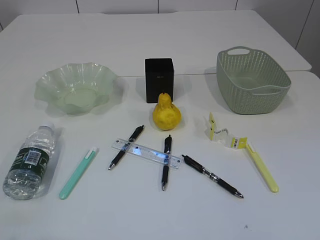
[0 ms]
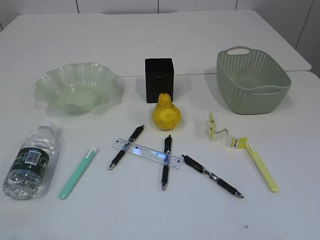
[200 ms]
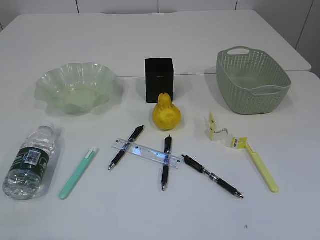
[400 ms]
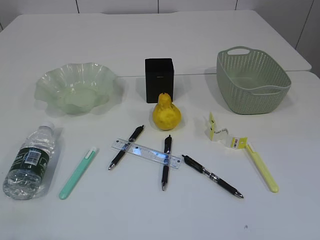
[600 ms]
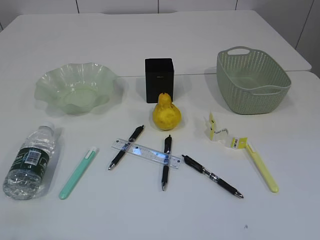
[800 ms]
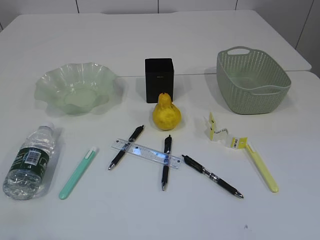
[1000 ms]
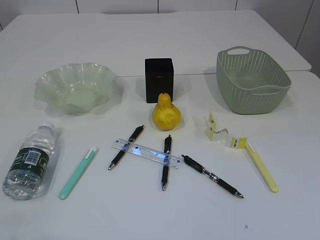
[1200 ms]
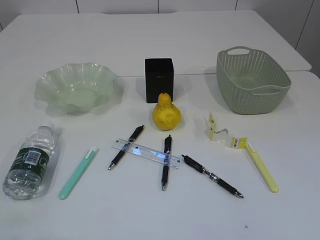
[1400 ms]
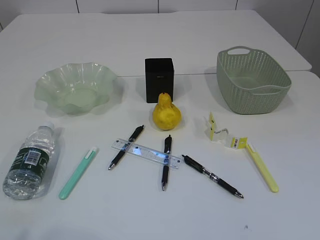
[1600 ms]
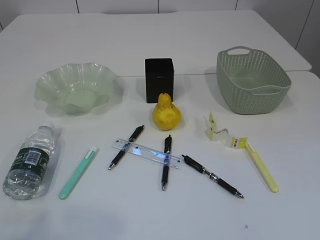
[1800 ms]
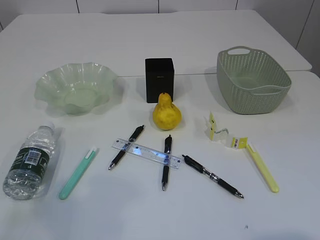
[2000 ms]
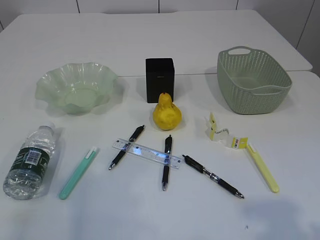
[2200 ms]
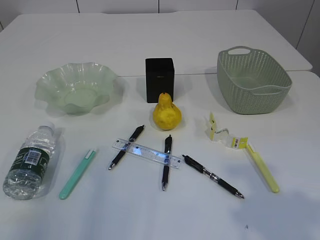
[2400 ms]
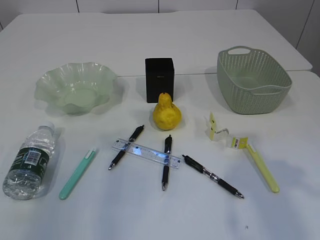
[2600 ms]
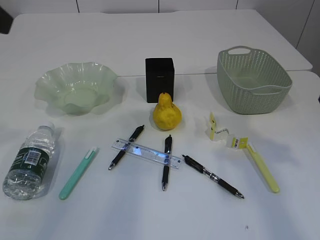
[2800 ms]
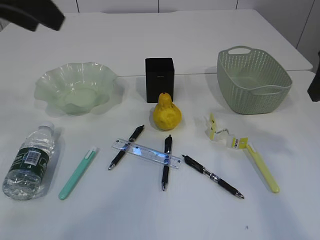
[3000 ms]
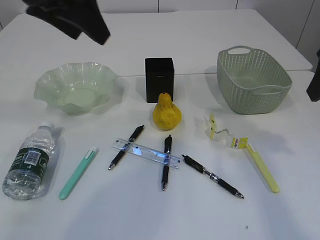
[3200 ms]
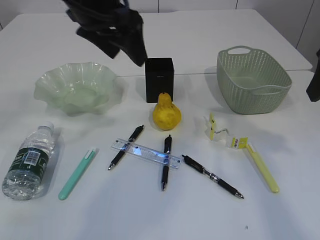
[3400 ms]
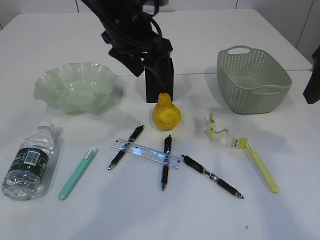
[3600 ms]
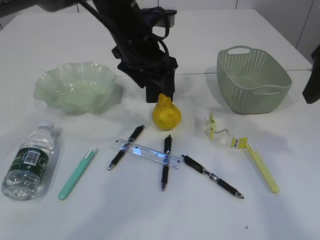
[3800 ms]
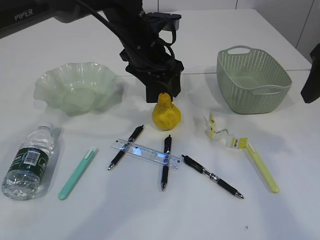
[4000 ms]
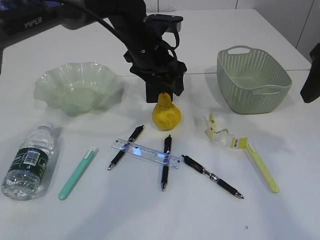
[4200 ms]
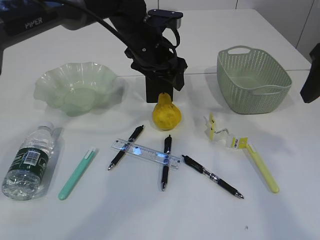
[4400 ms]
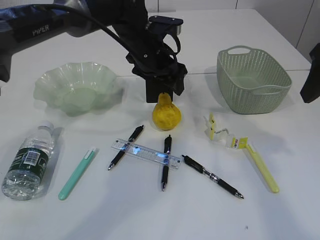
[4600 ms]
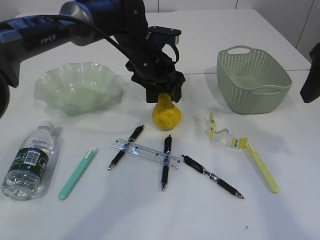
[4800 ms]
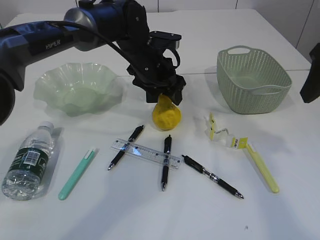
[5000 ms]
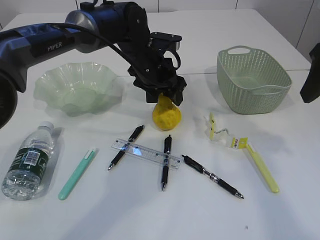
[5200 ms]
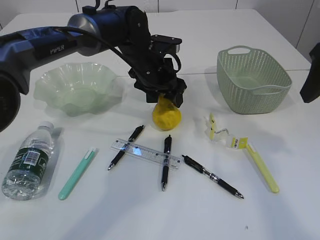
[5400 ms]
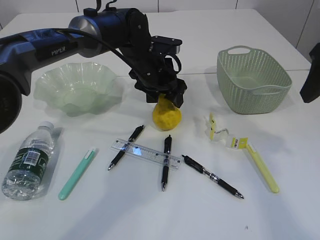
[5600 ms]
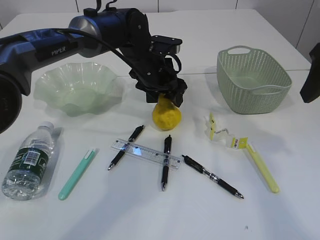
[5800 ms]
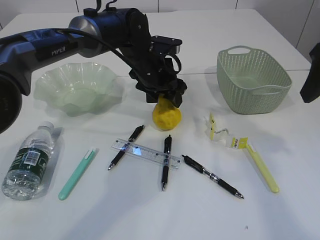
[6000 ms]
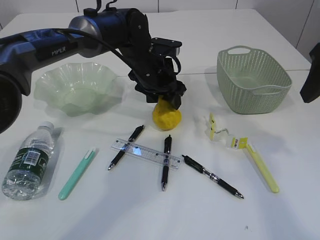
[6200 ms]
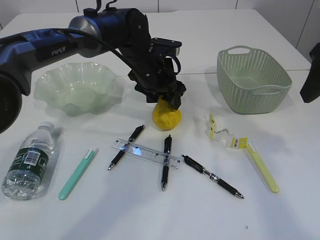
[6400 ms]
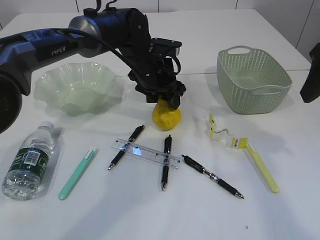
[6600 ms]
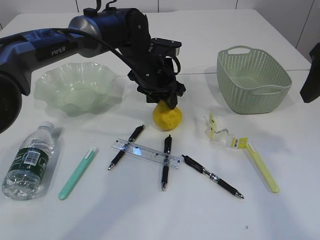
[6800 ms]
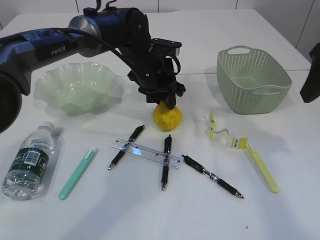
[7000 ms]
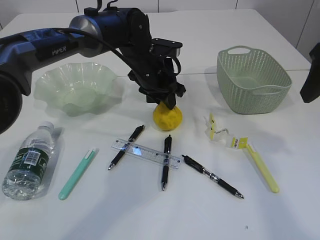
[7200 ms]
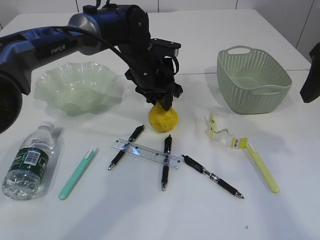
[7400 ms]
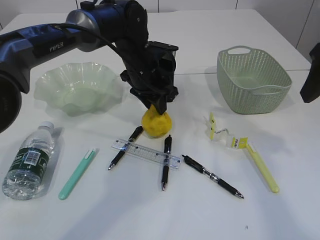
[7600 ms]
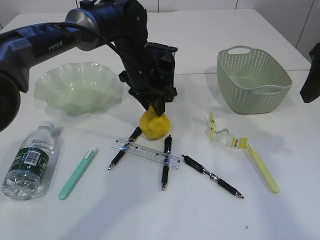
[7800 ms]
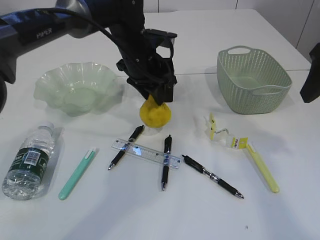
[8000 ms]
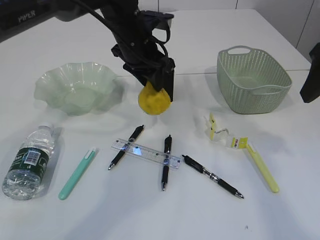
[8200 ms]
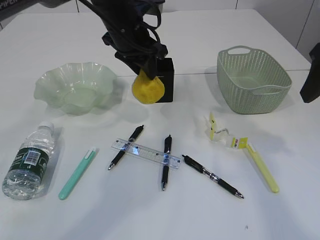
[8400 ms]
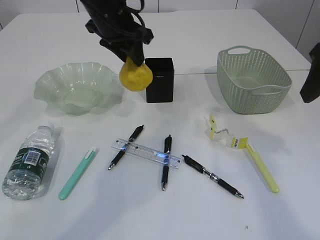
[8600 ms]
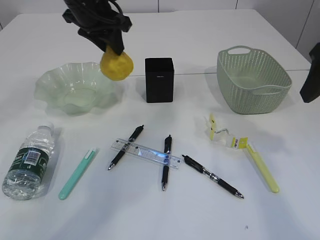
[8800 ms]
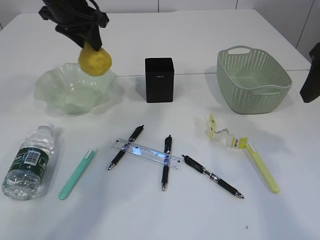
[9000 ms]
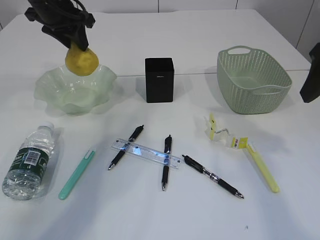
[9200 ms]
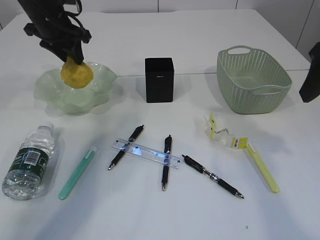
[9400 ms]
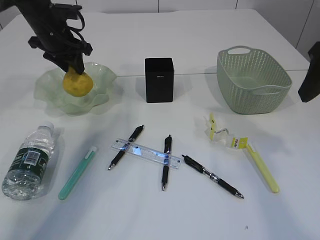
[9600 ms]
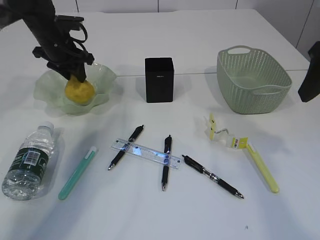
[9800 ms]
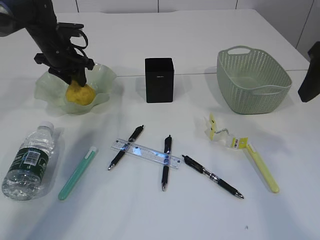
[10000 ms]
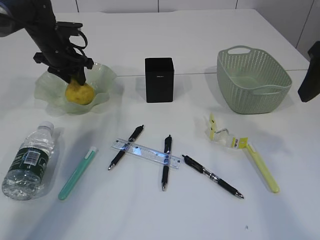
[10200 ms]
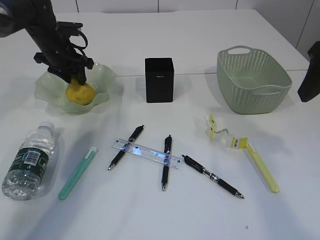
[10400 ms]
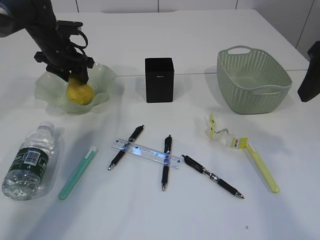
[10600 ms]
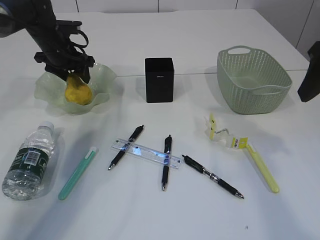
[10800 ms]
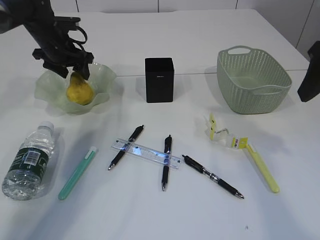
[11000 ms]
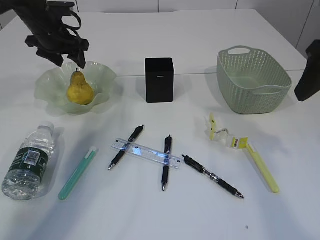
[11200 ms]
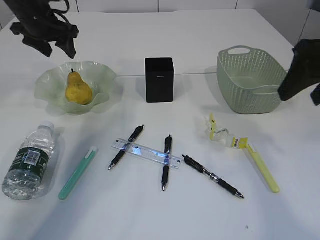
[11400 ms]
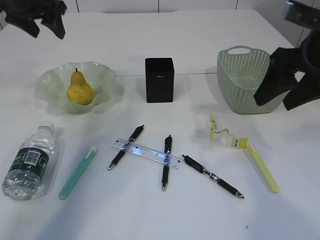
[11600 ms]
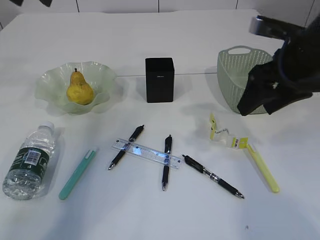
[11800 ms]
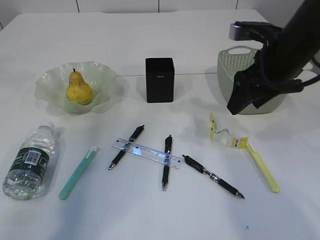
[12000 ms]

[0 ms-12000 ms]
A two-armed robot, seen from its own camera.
Step, 8400 ms to 11200 ms: Place the pear in the plate.
1600 ms to 3000 ms: The grippers both shift forward by roughly 30 cm.
3000 ms to 4400 ms: The left gripper moves to the right, downward and forward, roughly 30 cm.
4400 ms to 6000 ms: The left gripper travels downward by about 5 cm.
6000 ms to 7600 ms: The left gripper closes.
7600 ms to 9000 ms: The left gripper shifts about 20 cm to the left and upward.
9000 ms to 10400 ms: The left gripper travels downward, to the left and forward by approximately 15 cm.
10400 ms to 12000 ms: The left gripper is displaced upward and backward by some 25 cm, and opens. The right gripper heads forward, downward and to the left, covering roughly 10 cm.

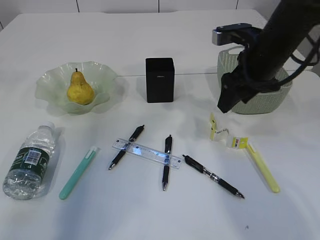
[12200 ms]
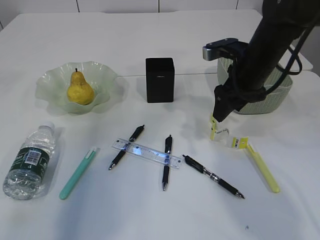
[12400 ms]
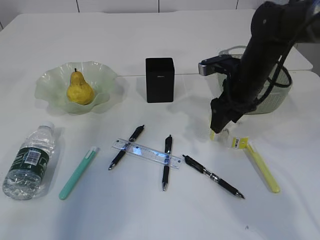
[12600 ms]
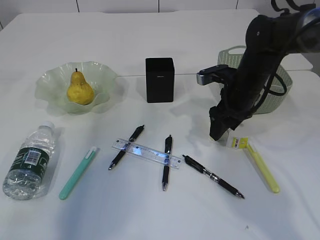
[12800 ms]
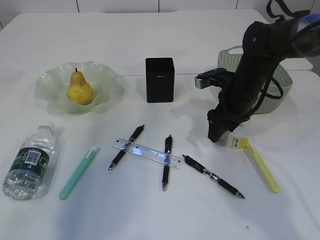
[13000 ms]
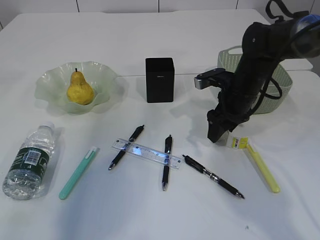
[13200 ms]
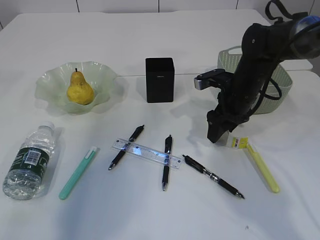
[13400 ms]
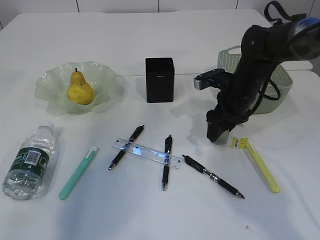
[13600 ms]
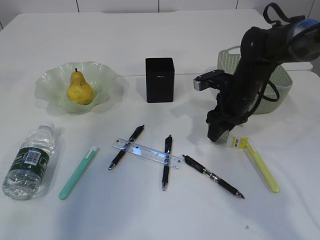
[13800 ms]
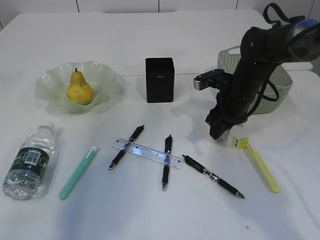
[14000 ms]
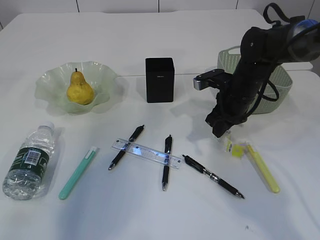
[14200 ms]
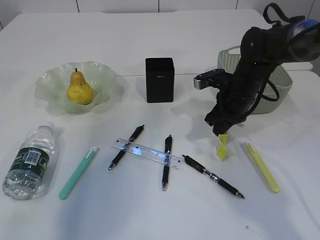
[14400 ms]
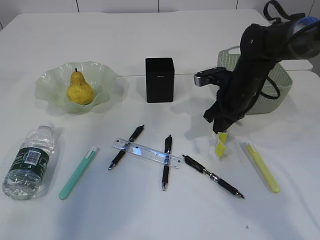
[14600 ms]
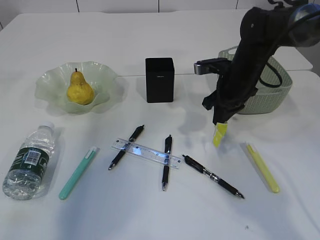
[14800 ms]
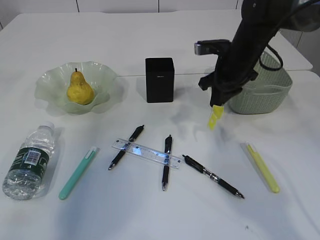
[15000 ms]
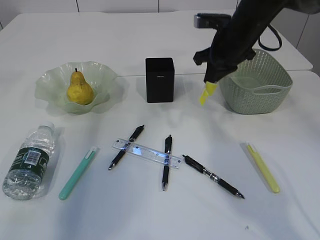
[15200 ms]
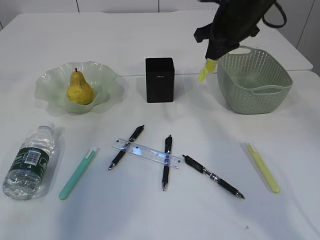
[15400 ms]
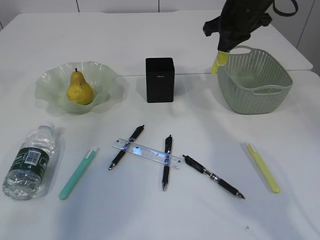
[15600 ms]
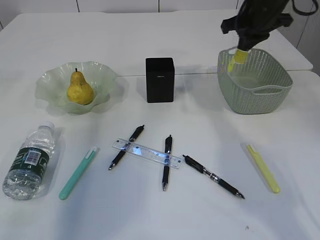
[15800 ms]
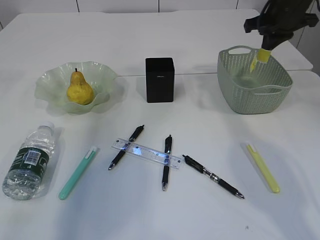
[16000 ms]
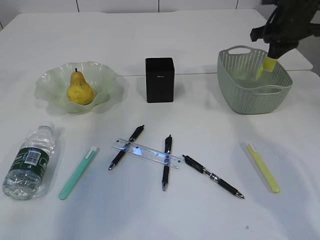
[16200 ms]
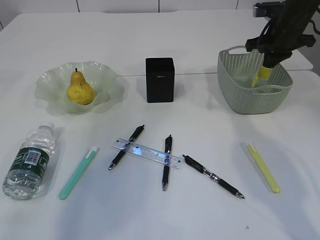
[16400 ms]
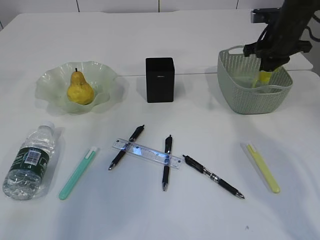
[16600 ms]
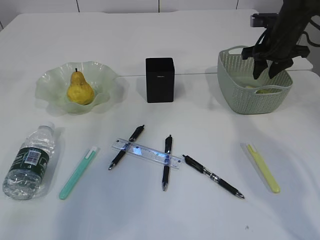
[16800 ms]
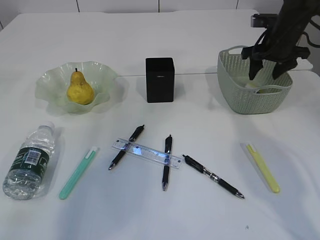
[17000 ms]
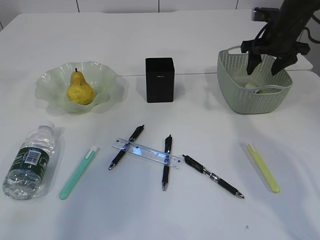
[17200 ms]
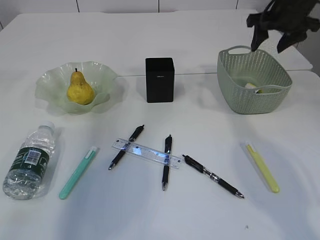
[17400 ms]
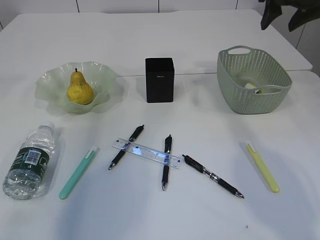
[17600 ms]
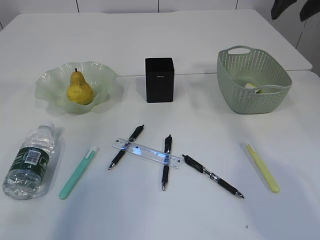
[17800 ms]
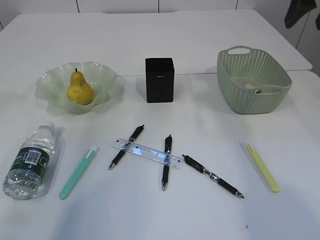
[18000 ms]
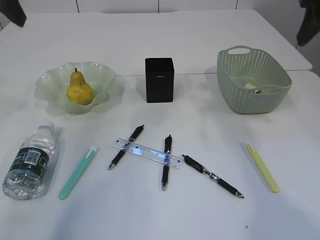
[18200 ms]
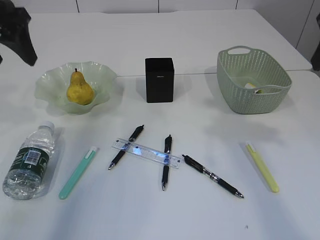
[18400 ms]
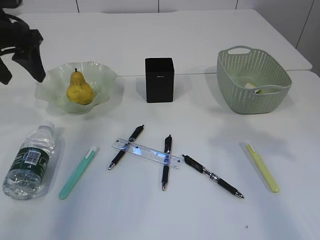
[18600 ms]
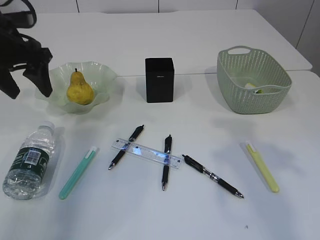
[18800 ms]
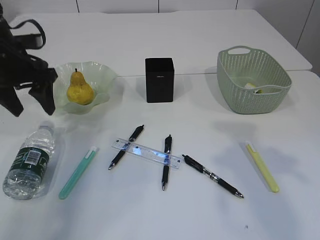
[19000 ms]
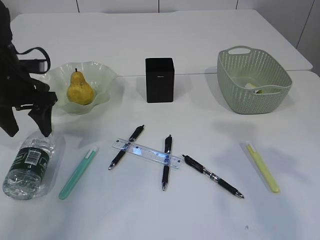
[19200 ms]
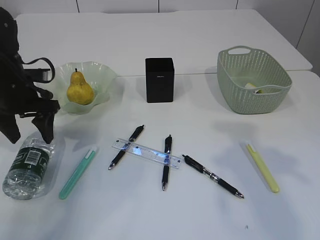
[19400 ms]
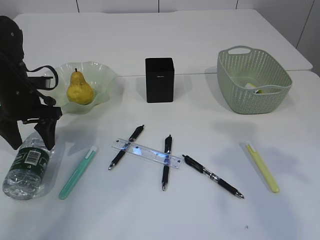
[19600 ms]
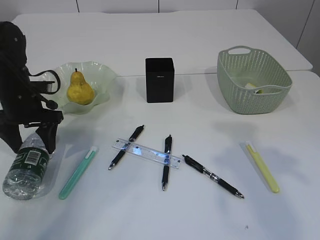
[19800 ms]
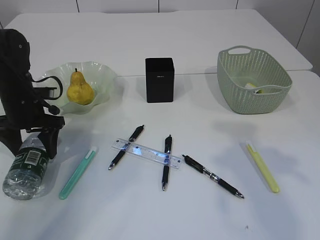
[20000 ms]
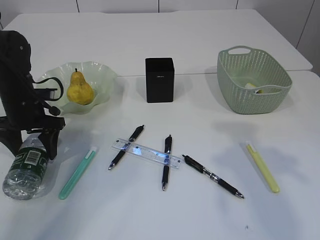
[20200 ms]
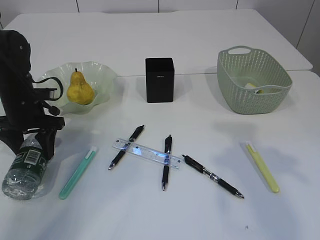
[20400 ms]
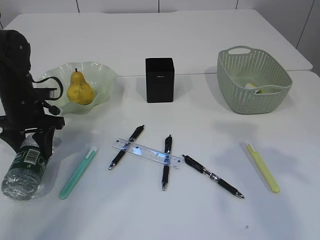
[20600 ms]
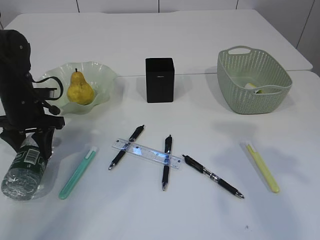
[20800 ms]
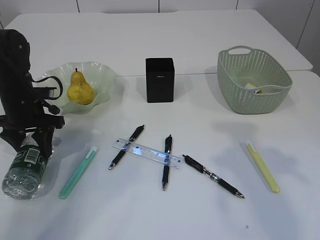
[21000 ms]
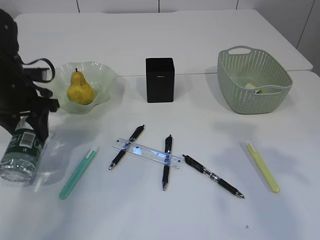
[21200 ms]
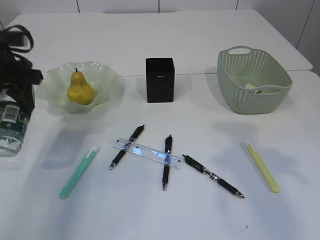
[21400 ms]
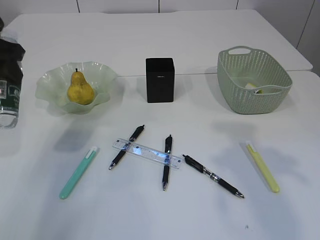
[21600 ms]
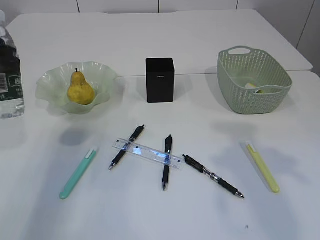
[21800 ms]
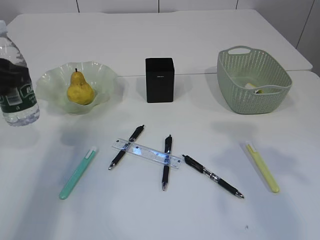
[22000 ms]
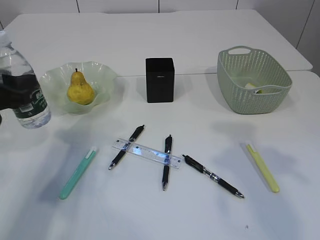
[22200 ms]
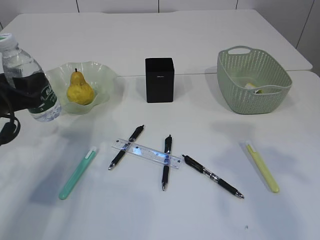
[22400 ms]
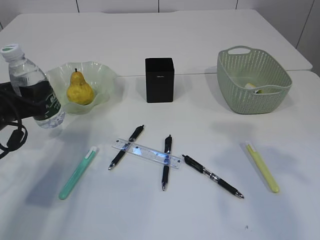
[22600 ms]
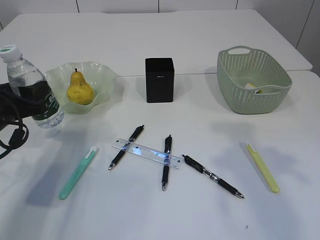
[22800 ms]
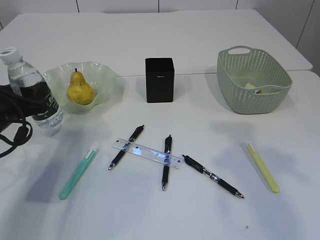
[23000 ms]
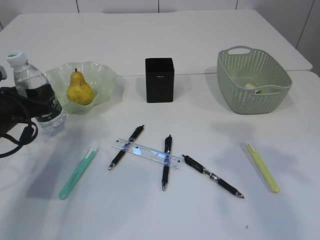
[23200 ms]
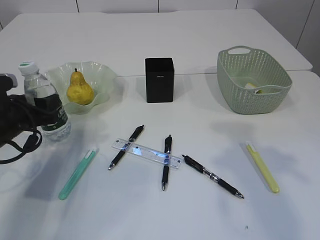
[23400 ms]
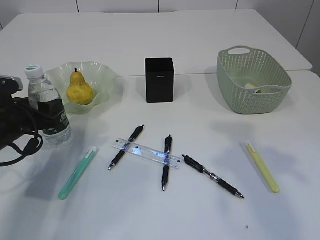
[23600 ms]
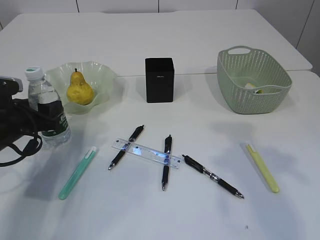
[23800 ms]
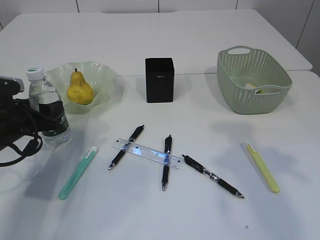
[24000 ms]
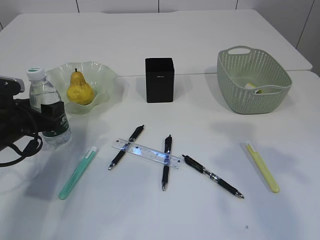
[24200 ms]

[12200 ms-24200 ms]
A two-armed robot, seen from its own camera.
Step, 12200 ms to 14800 ms: Pick up the plastic.
Step, 15000 ms to 17400 ms: Place the plastic in the basket.
Step, 17600 ms to 21200 ms: Pick up the bottle with the left arm.
12200 ms to 13800 ms: The right gripper is displaced downward by about 10 cm.
13800 ms to 15200 ms: The right gripper travels upward by some 10 cm, and closes.
15200 ms to 16600 ms: The right gripper heads to the right, covering about 10 cm.
16600 ms to 18200 ms: The right gripper moves backward and upward, some 20 cm, and opens up. The left gripper travels downward by roughly 5 cm.
18200 ms to 19800 ms: The right gripper heads backward, covering about 15 cm. Meanwhile the left gripper moves downward, roughly 25 cm.
19800 ms to 21200 ms: The left gripper closes up.
21200 ms to 22600 ms: The left gripper heads backward, covering roughly 10 cm, and reaches some 10 cm upward, then returns.
22600 ms to 24200 ms: The grippers stay close to where they were, moving slightly.
